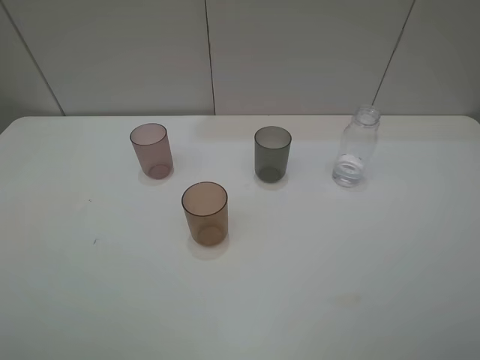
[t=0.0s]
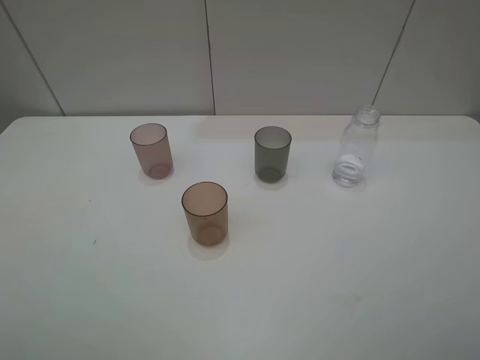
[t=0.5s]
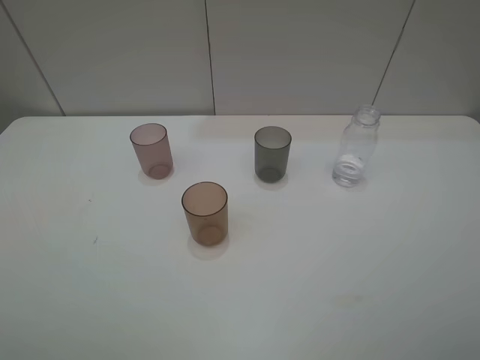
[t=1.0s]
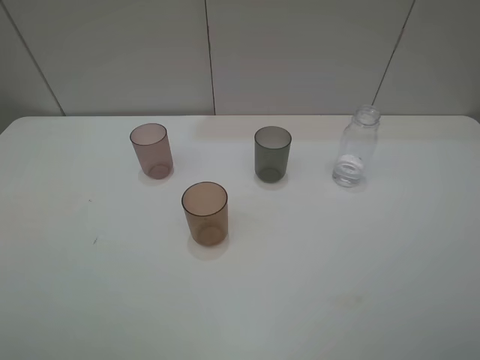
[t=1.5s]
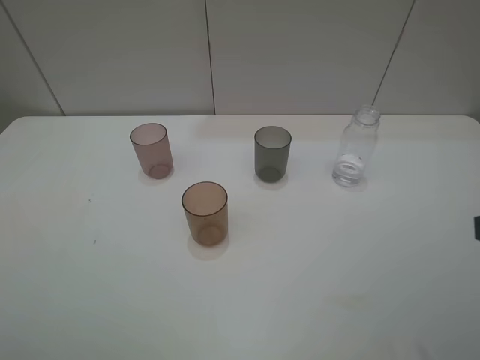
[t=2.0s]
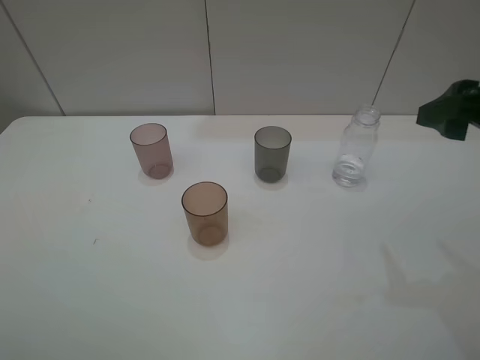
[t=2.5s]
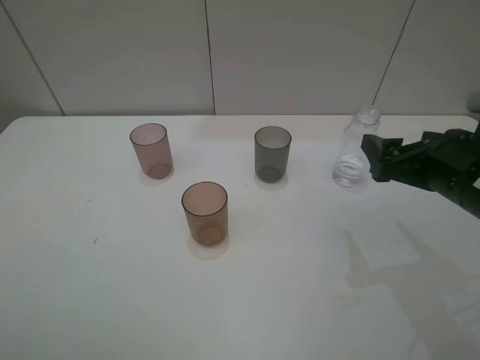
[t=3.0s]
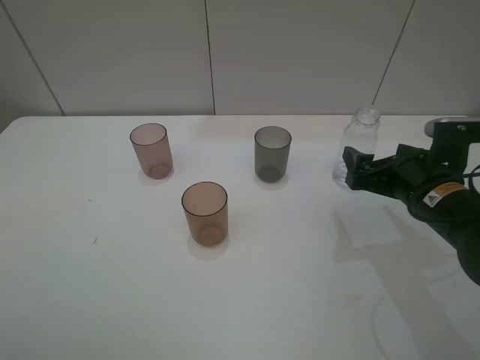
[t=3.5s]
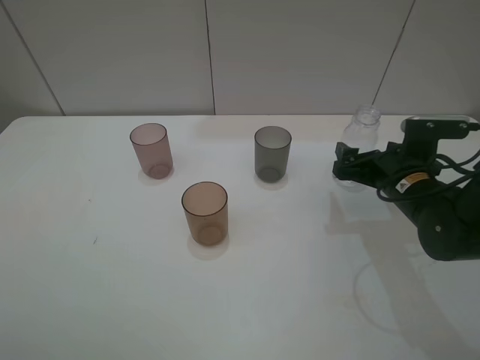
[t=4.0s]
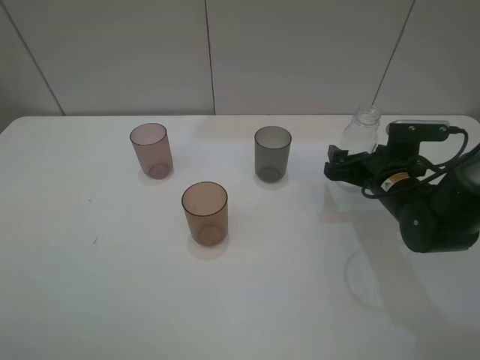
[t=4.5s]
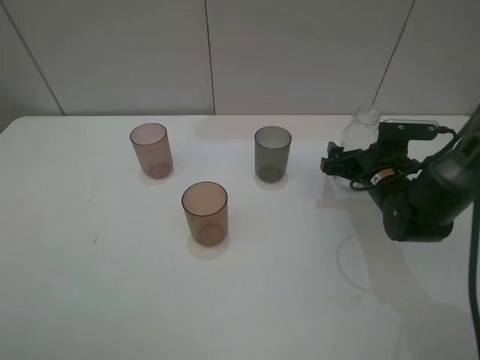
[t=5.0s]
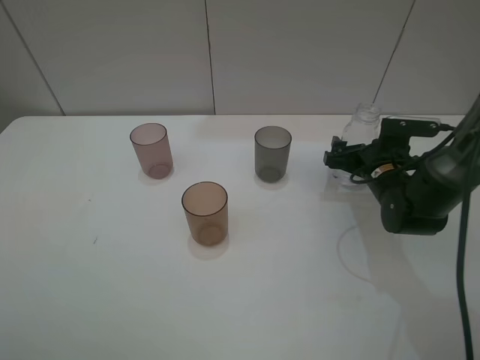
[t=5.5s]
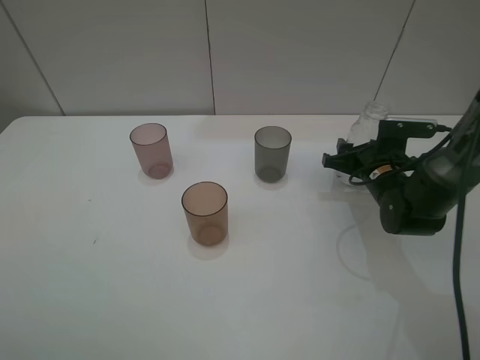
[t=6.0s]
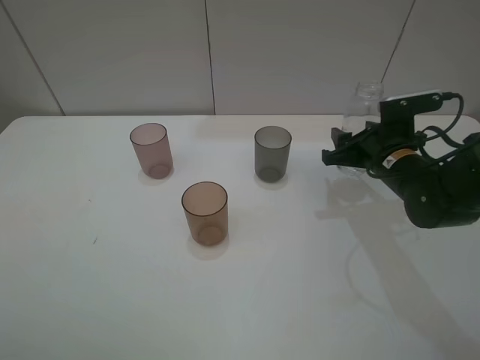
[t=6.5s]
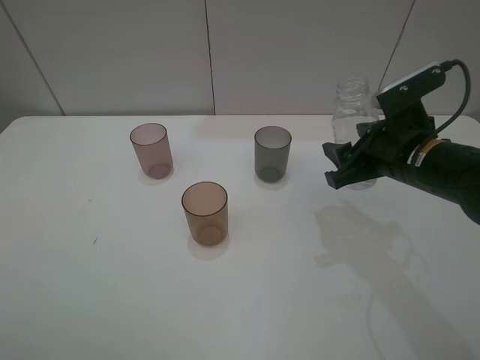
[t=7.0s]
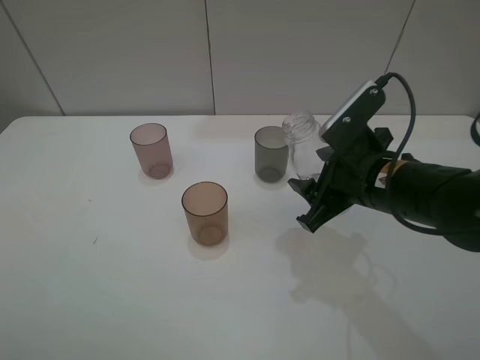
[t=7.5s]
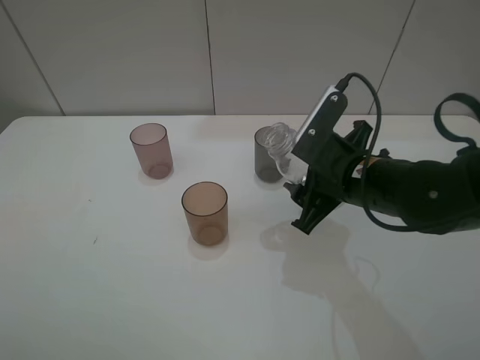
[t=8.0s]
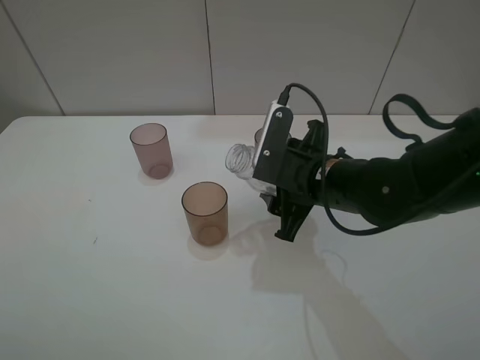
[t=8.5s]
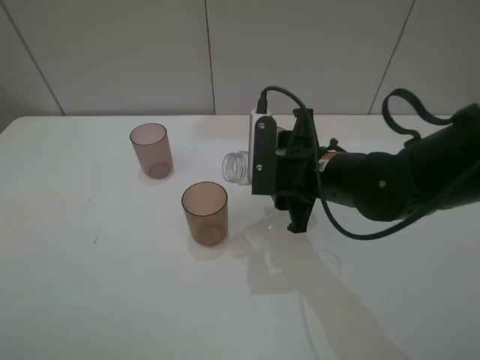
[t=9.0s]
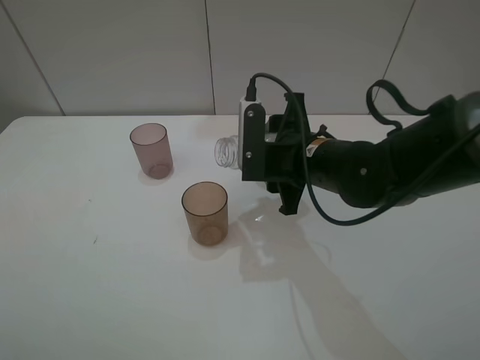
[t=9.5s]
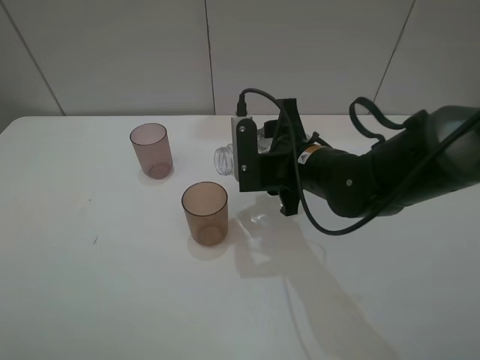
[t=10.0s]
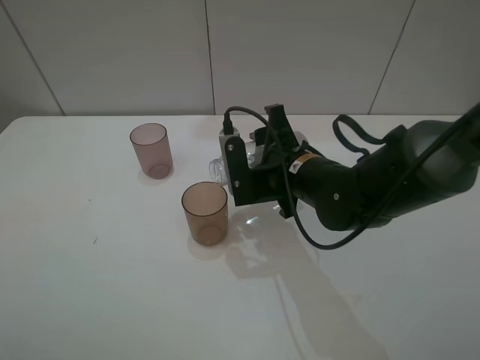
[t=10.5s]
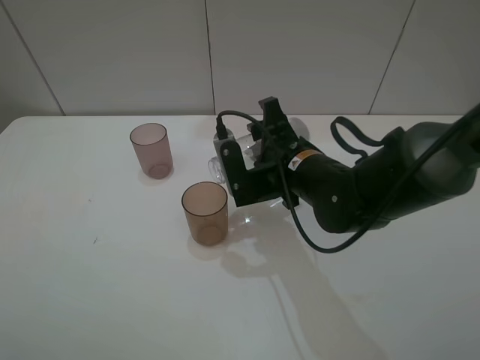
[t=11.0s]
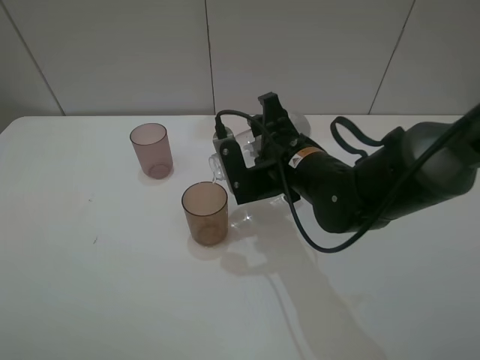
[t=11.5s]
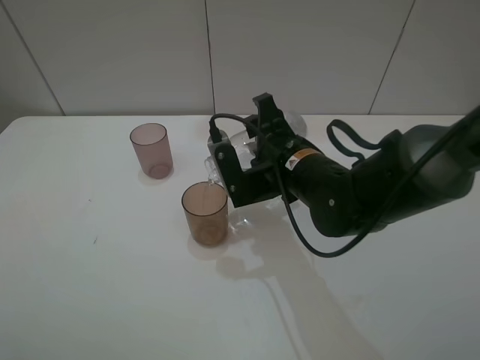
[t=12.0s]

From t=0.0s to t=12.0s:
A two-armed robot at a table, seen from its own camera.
Task of the whole recording: pick up the bottle filled with water and pour water into the middle cup of the three cups.
Step, from t=0.0s to t=6.0s: Grasp the transparent bottle with the right gripper.
Step, from t=6.5s to t=10.5s: Pour water from transparent bottle tobrown cup with the right gripper.
From t=2.0s to t=4.0s: The right gripper heads forward and downward, covering some 25 cm.
From t=4.0s to t=6.0s: The right gripper moves forward, approximately 5 cm, and closes its fingers.
From t=6.0s to t=8.0s: The right gripper travels backward, upward and to the left by approximately 15 cm.
From t=8.0s to t=10.0s: The right gripper is displaced to the left by some 5 cm.

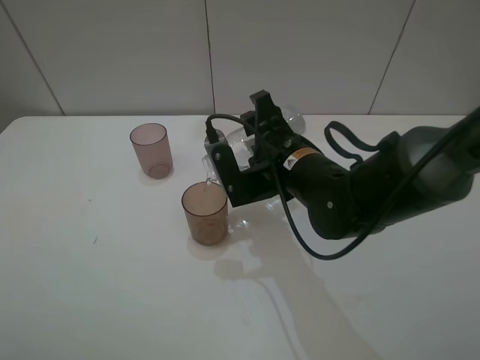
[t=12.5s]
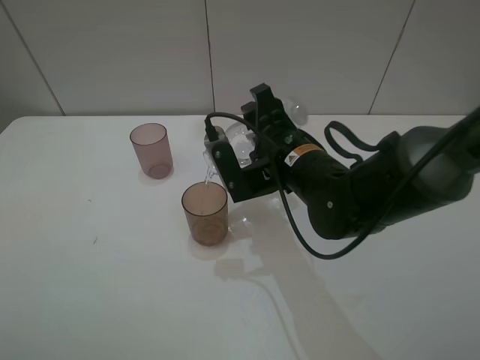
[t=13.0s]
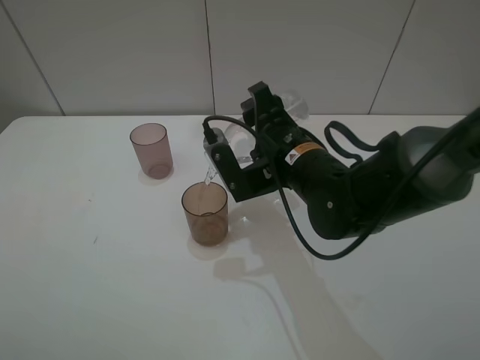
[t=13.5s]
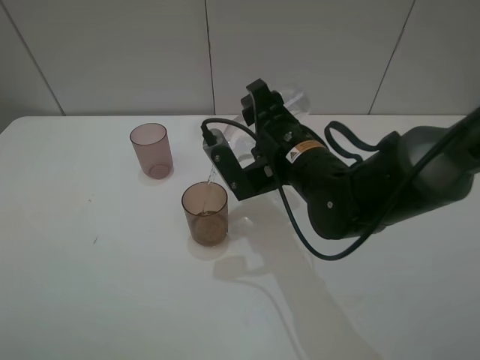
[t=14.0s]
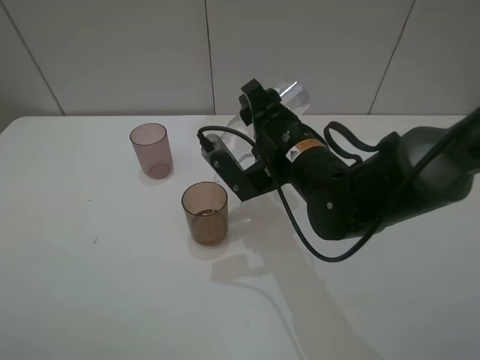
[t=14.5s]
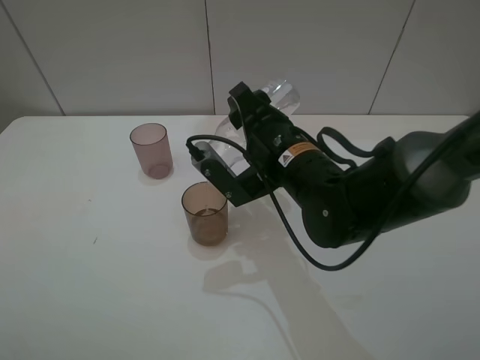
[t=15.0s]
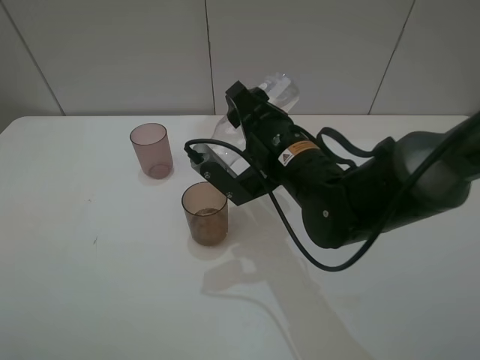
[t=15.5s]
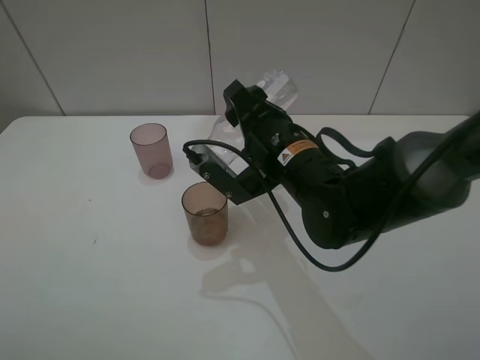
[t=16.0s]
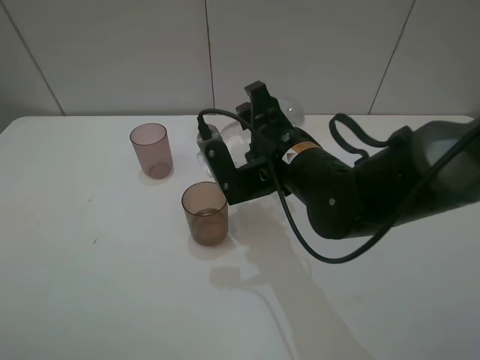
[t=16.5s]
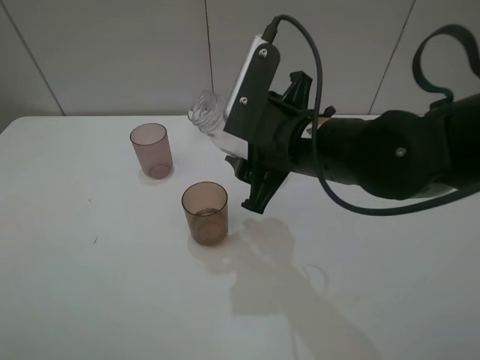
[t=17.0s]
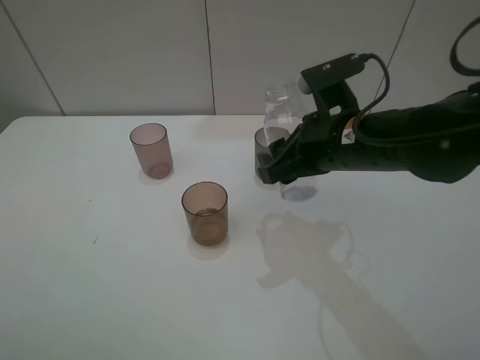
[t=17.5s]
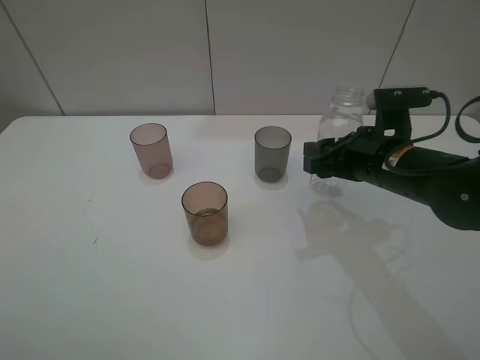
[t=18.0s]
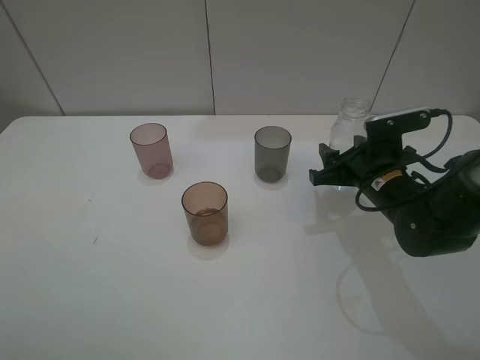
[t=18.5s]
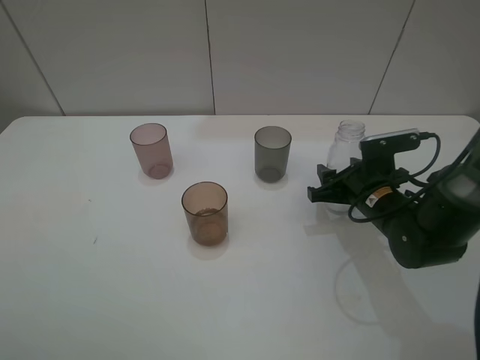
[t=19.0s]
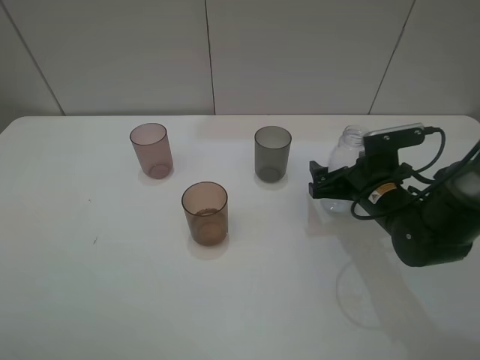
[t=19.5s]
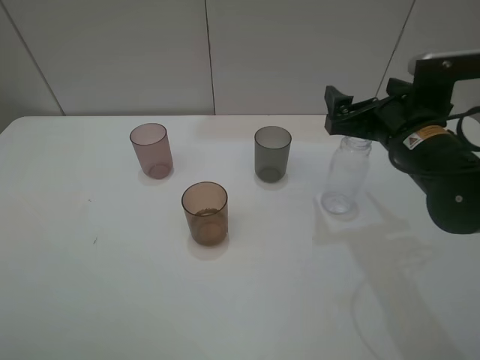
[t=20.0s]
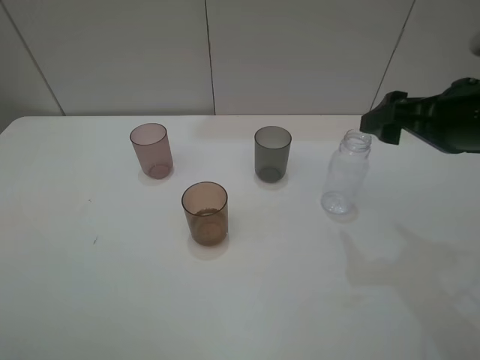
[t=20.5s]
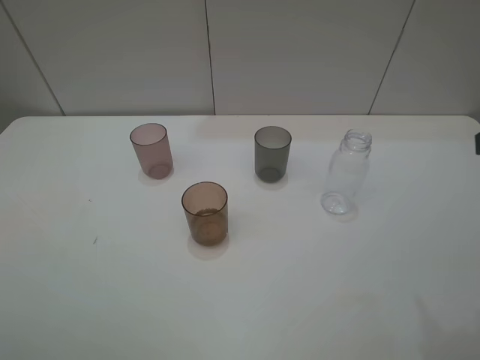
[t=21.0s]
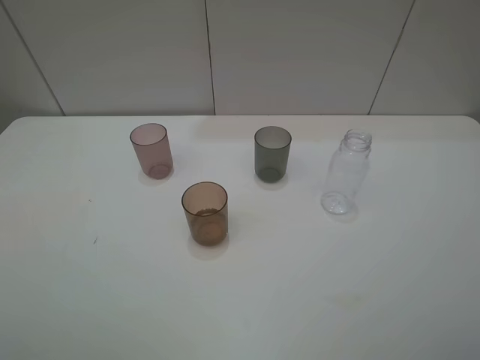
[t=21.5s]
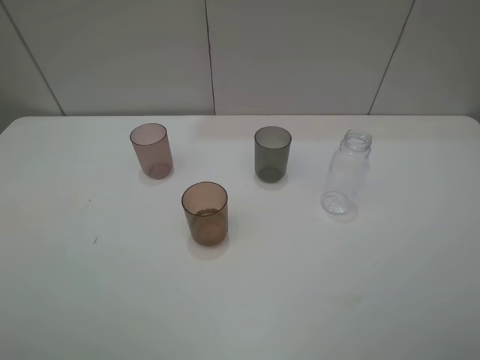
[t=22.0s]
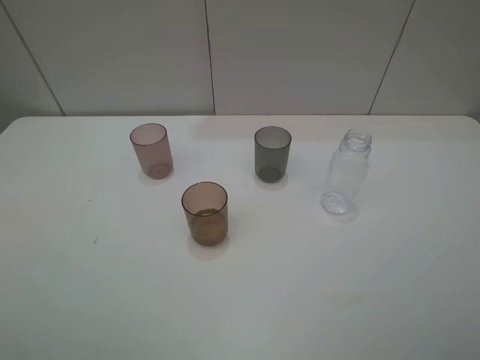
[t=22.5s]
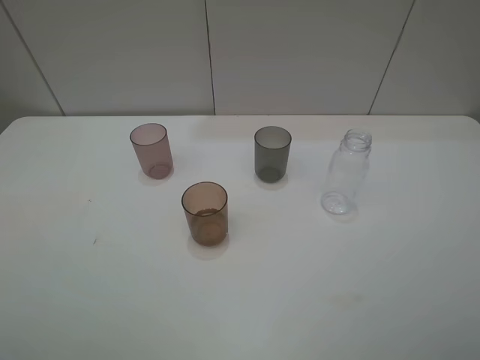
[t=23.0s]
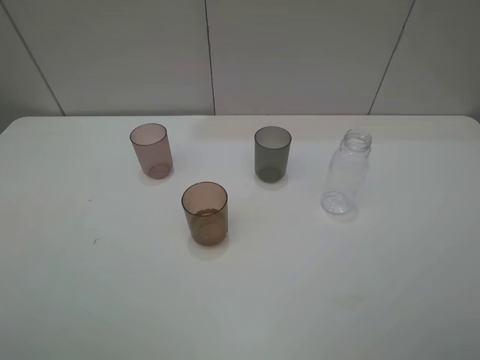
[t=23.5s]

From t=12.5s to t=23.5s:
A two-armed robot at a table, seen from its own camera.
Task of the whole recording: pick up the bottle filled with water and pour water into the middle cup of the three cups.
Step, from t=12.5s to t=20.0s: Place the transparent bottle with the right gripper.
From t=12.5s to t=14.5s: The grippers make only small movements.
From t=14.5s to t=16.0s: The grippers move only a little.
From t=16.0s to t=18.0s: The right gripper travels to the right by some 15 cm.
From t=18.0s to t=20.0s: The right gripper opens.
From t=20.0s to t=21.5s: The right gripper travels backward and upward by approximately 30 cm.

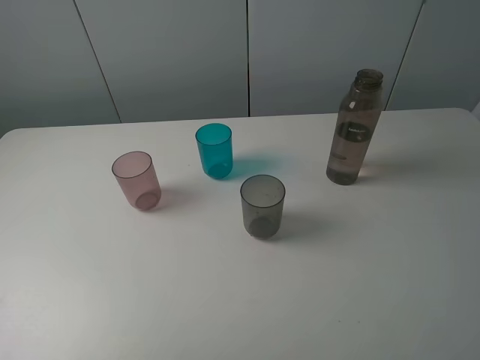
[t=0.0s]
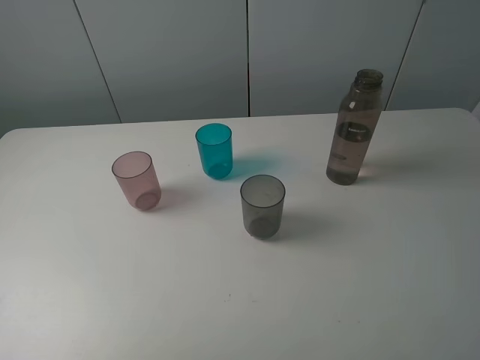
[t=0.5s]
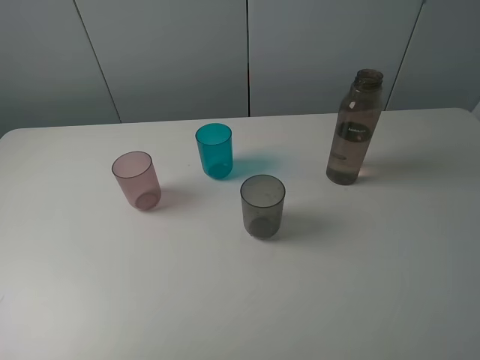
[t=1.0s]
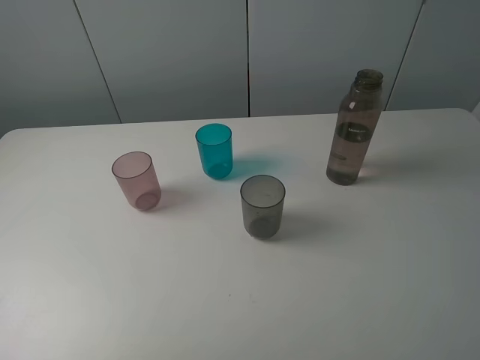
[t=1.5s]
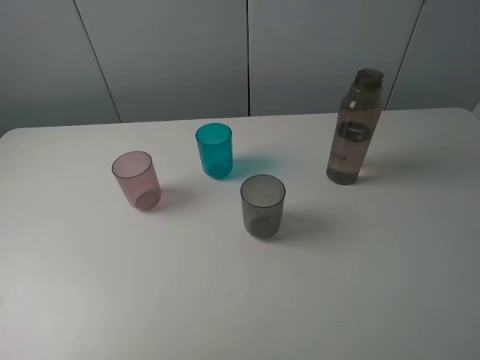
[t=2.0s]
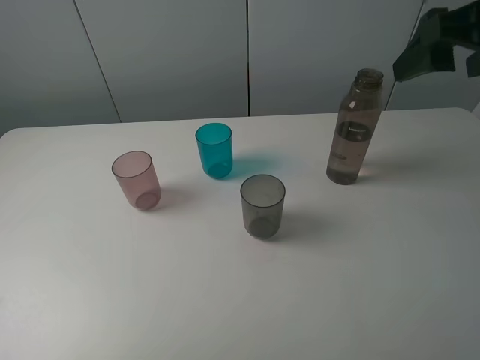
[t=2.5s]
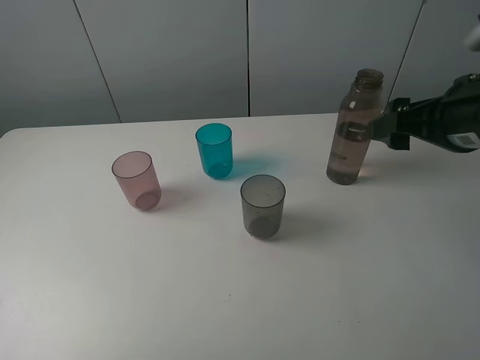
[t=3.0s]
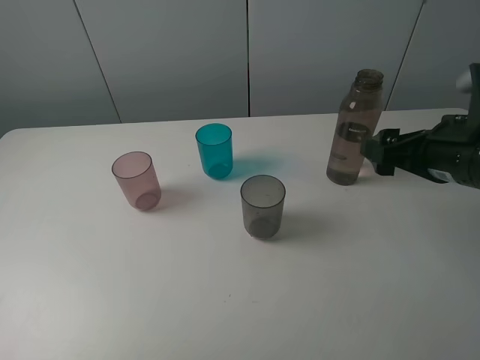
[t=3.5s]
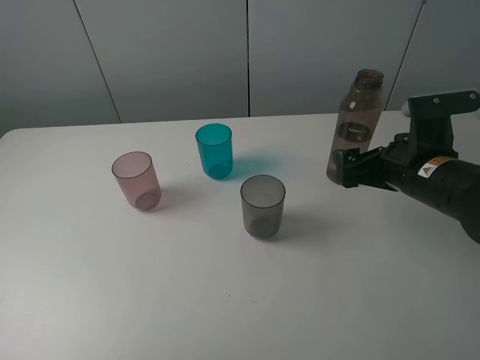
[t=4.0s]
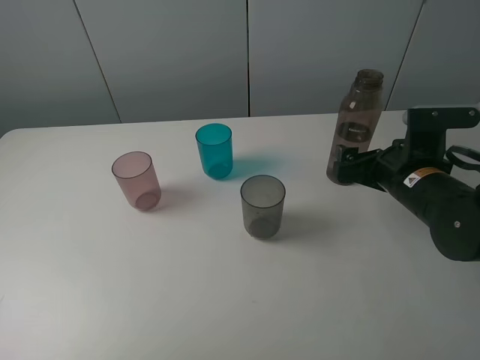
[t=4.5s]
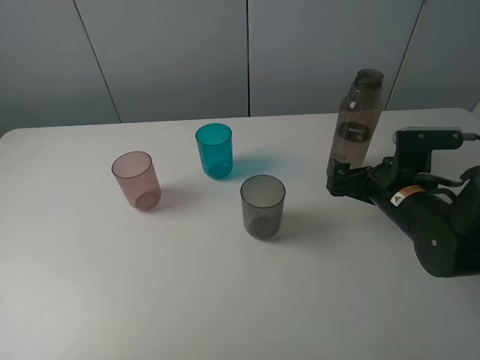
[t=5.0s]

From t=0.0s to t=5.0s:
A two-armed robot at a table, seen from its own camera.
Task of the whole recording: pick up the bottle filled with water and pour water into the middle cup of the three cups.
From t=0.0s to t=2.5s: The right gripper travels forward by approximately 25 cm.
From t=2.5s to t=5.0s: The right gripper shifts approximately 25 cm downward.
